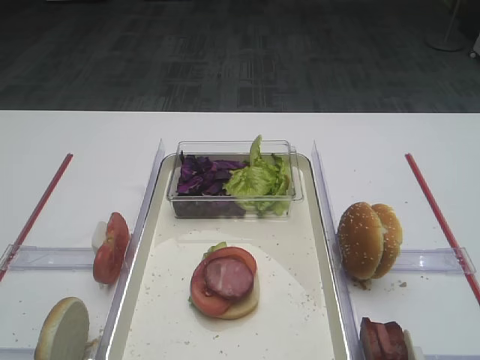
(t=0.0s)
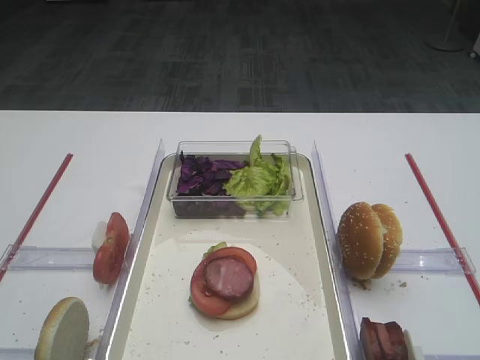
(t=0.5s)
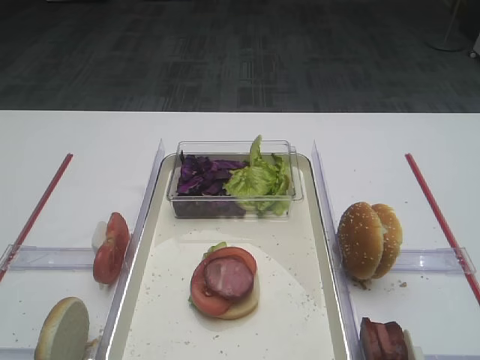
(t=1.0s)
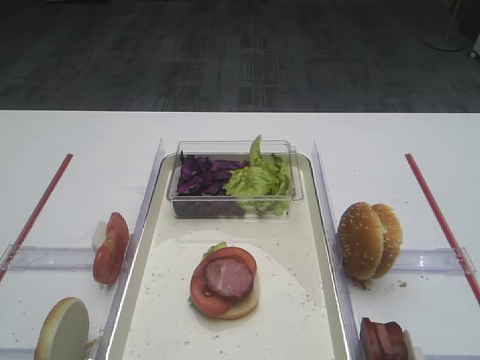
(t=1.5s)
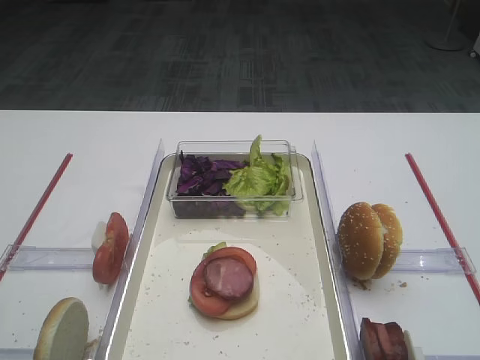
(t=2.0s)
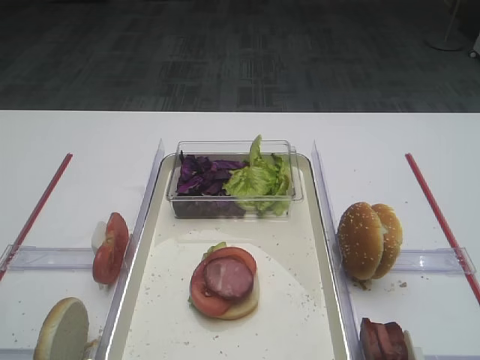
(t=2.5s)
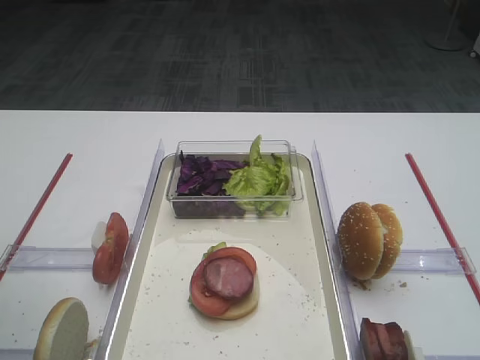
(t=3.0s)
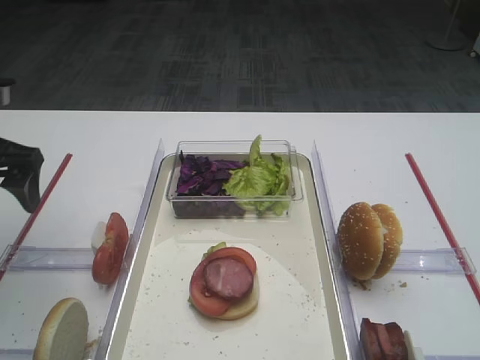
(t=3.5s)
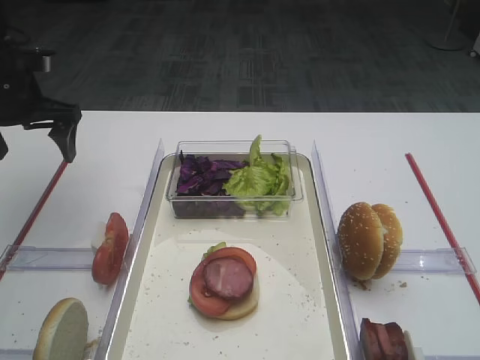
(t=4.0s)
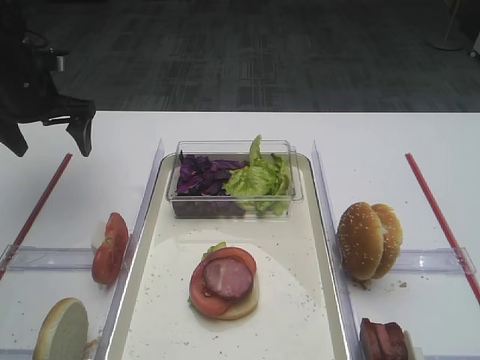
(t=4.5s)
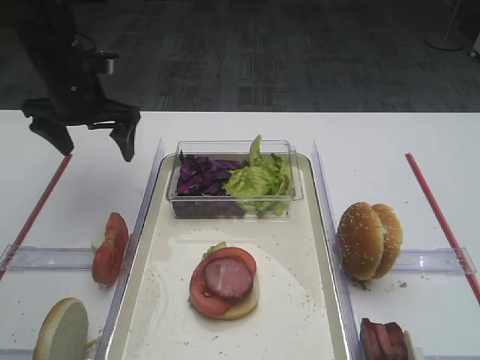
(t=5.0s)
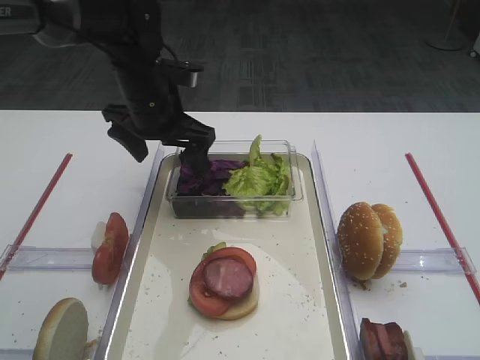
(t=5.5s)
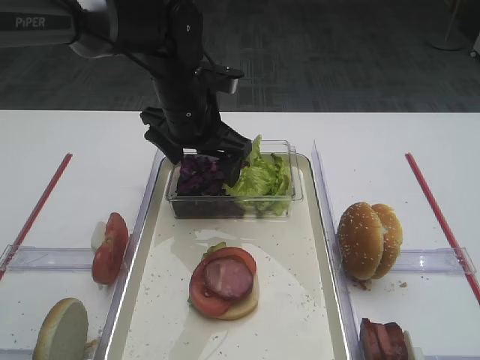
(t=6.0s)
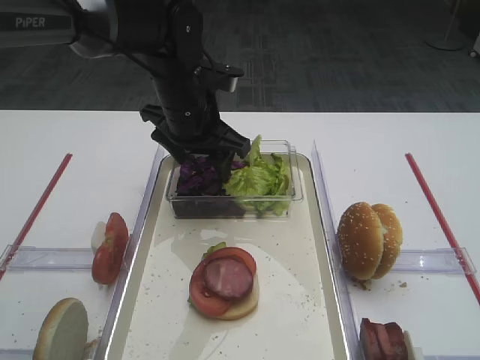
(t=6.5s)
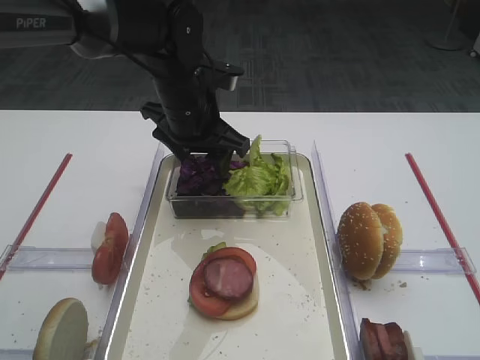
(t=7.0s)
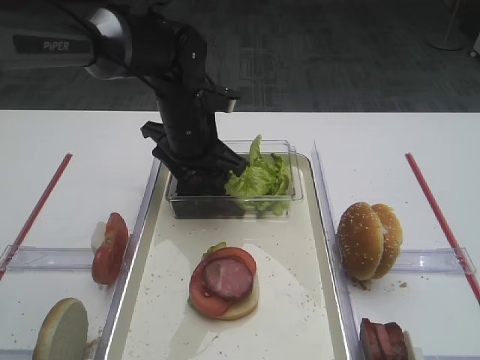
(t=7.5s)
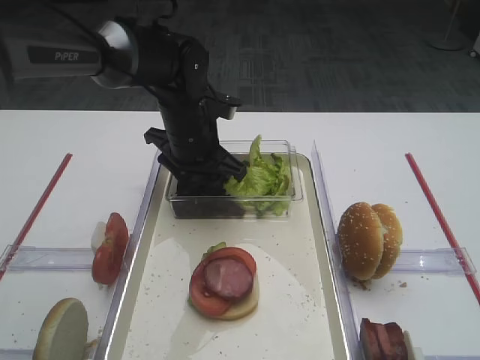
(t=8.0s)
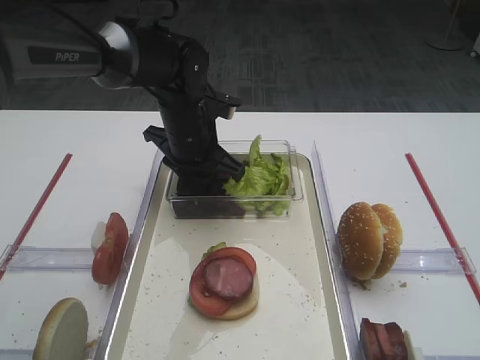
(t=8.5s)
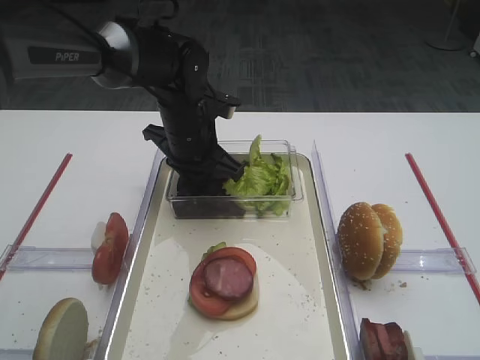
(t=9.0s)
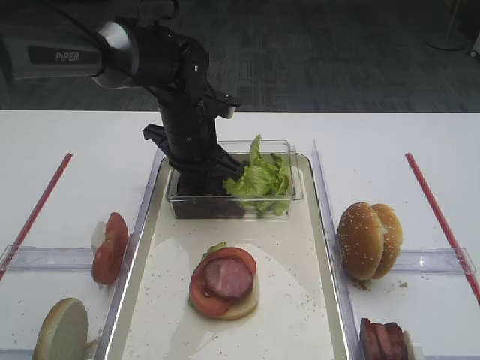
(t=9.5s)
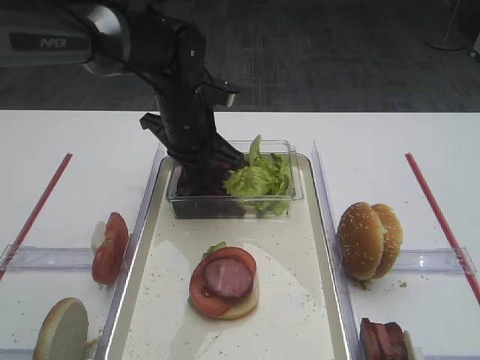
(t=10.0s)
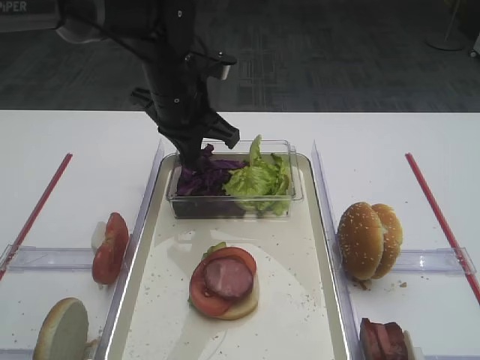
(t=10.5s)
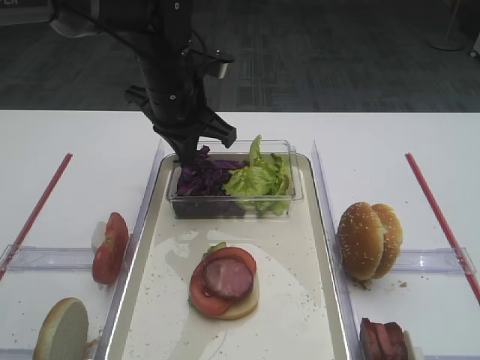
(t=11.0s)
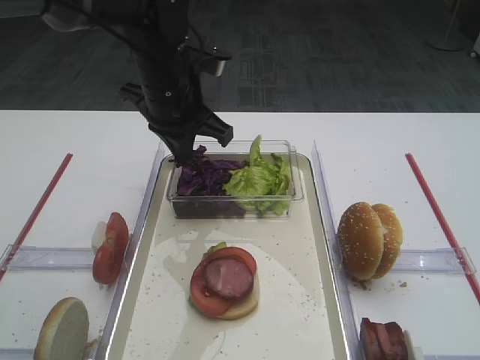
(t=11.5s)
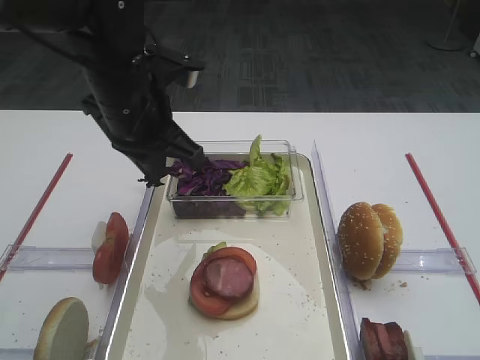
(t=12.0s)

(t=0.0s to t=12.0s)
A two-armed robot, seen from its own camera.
Step, t=0.0s - t=10.5s: Pick up the purple cabbage with the left gripper.
t=2.0s - t=4.0s: The left gripper moves forward, roughly 30 cm.
t=4.0s - t=6.0s: The left gripper heads to the right, covering some 20 cm.
t=6.0s - t=8.0s: The left gripper closes up.
t=8.0s - t=10.0s: The left gripper closes its fingers.
t=10.0s - t=12.0s: The left gripper goes some 10 cm backward and upward.

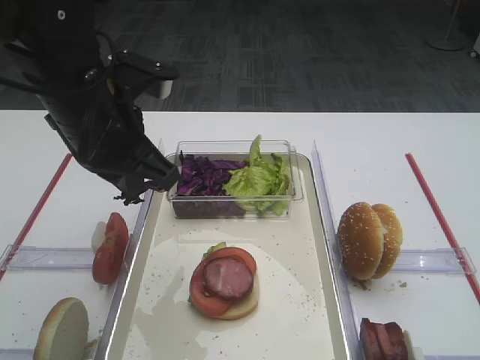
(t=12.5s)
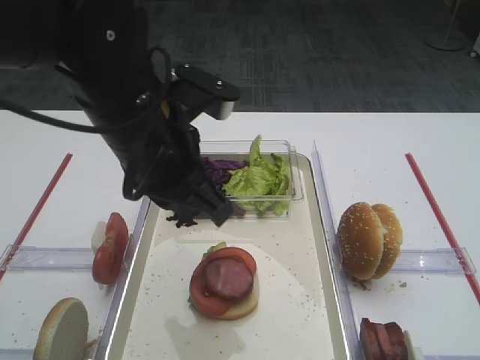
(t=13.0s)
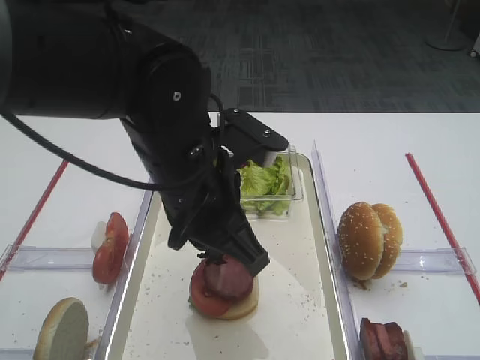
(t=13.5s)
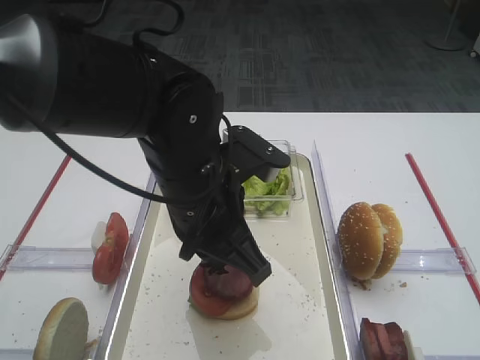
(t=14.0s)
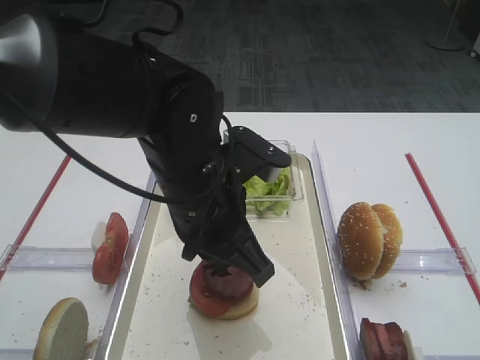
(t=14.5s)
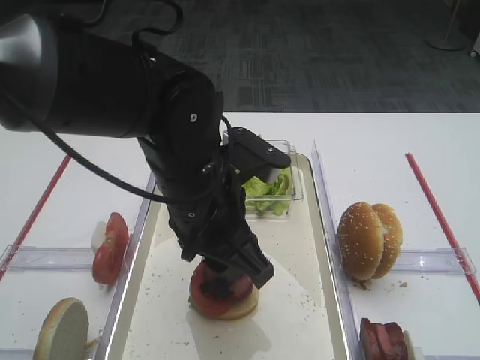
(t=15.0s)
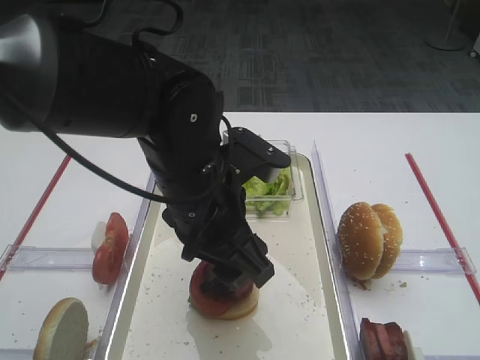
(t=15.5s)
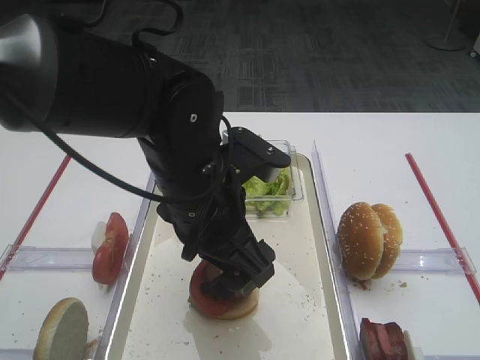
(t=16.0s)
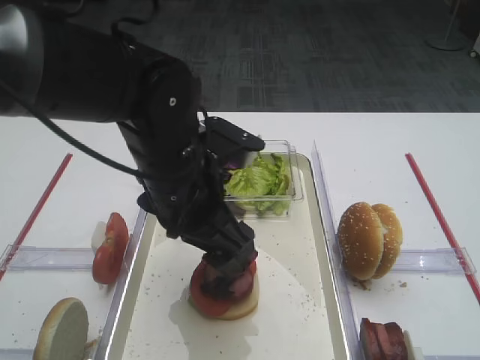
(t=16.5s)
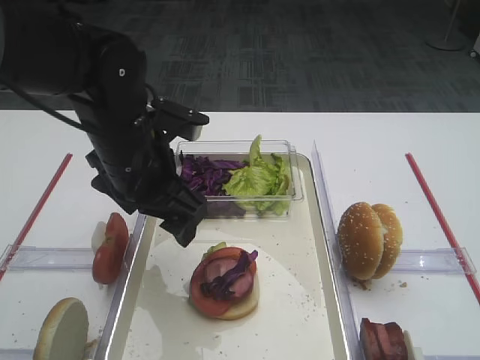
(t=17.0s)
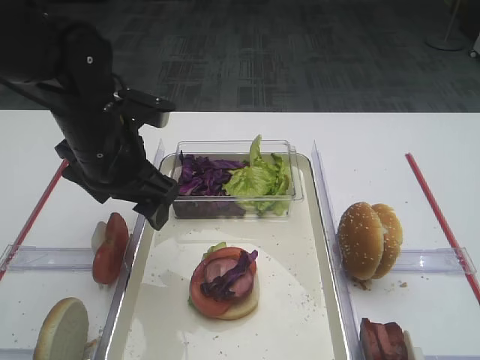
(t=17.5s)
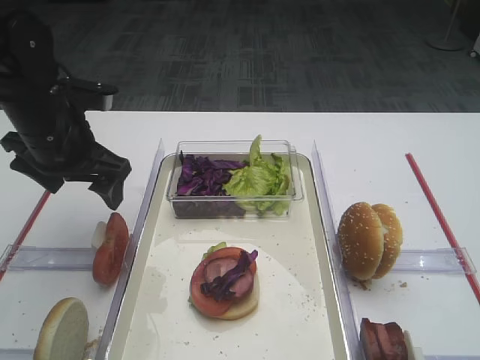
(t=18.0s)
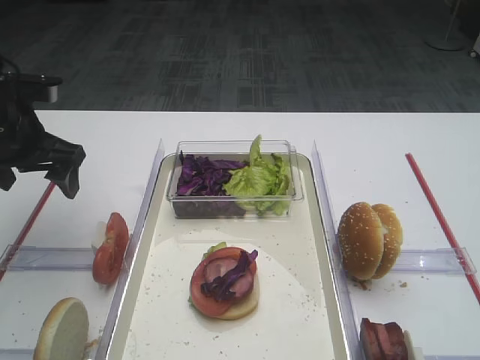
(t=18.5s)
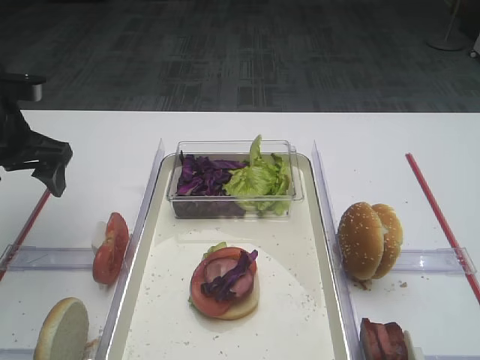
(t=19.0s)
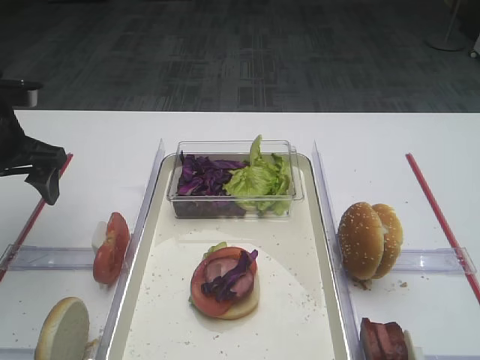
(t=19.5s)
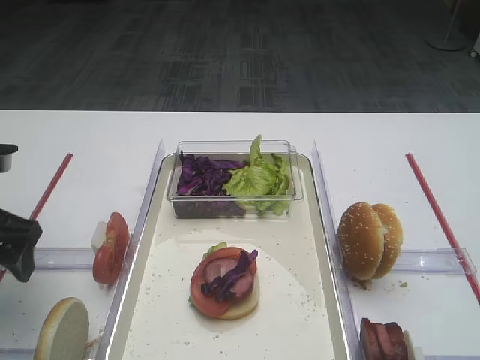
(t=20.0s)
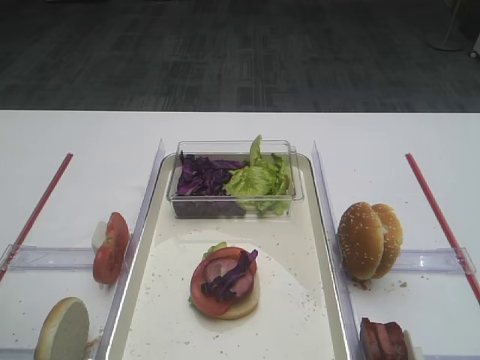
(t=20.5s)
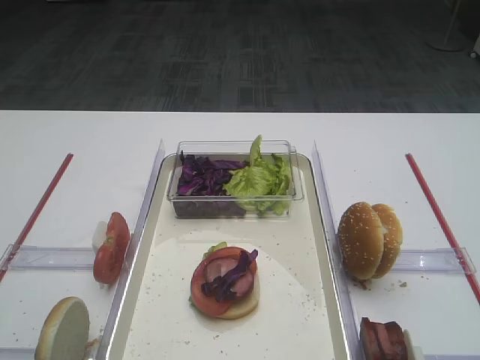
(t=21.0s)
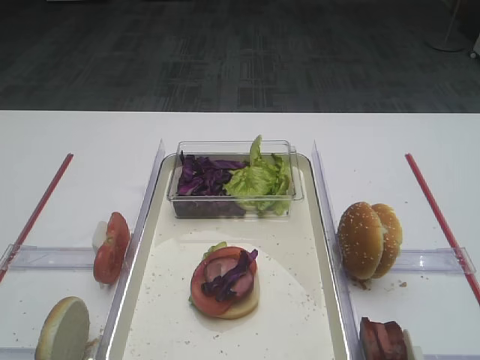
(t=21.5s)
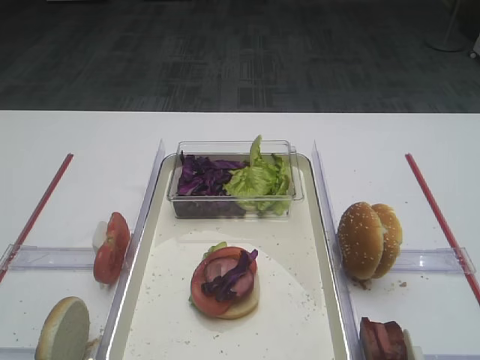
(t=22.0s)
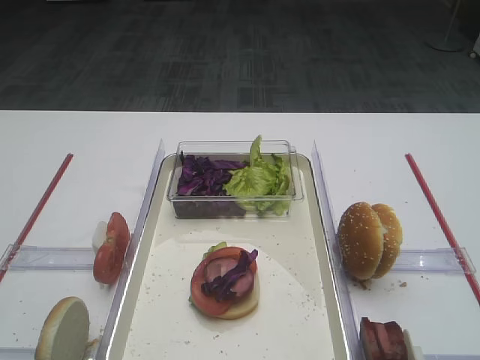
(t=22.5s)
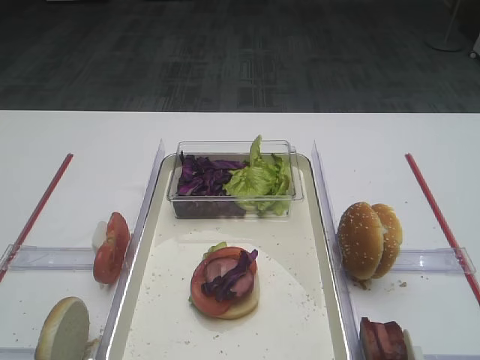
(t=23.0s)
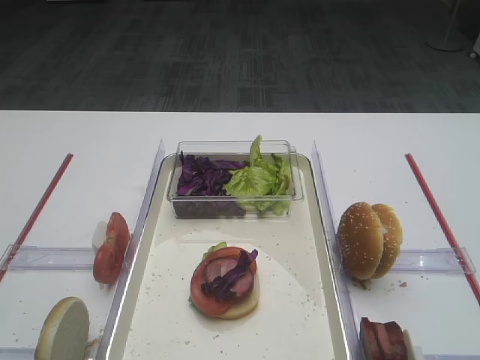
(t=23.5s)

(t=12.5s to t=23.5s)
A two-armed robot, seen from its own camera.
Step, t=12.5s - t=15.0s: Place the purple cabbage on the cutlet with the left gripper.
t=12.5s - t=14.5s: The left gripper moves to the right, some 10 cm.
t=14.5s - t=16.0s: The left gripper opens its fingers.
t=16.0s - t=18.0s: The left gripper travels to the left and forward by about 20 cm.
t=18.0s - t=20.0s: The left gripper shifts approximately 10 cm to the left and backward.
t=20.0s - t=21.5s: The left gripper shifts about 25 cm backward.

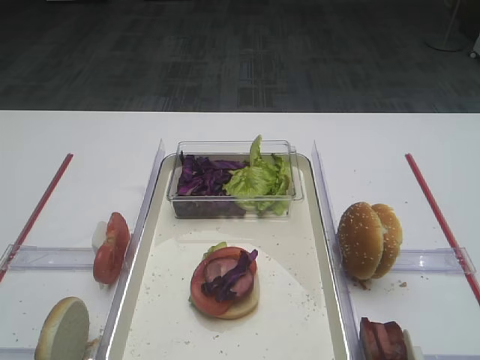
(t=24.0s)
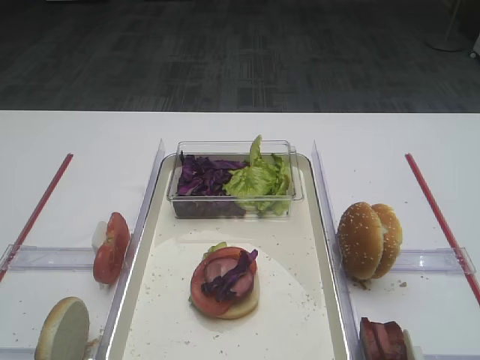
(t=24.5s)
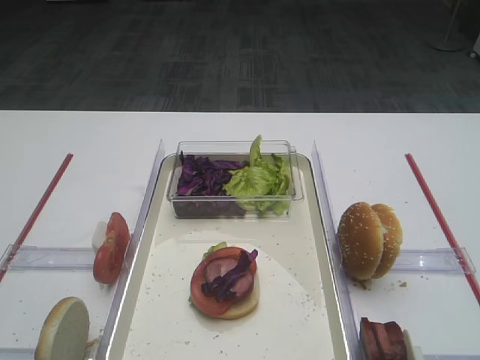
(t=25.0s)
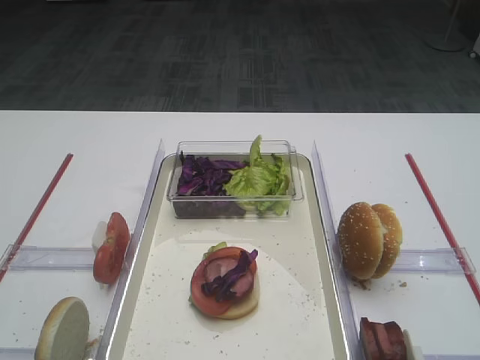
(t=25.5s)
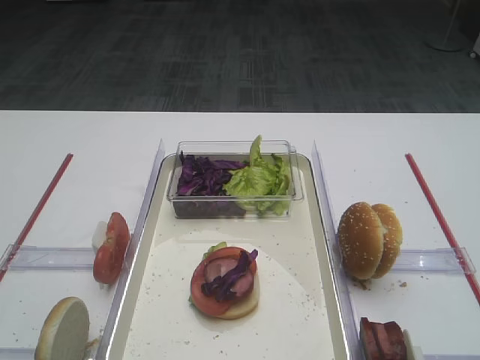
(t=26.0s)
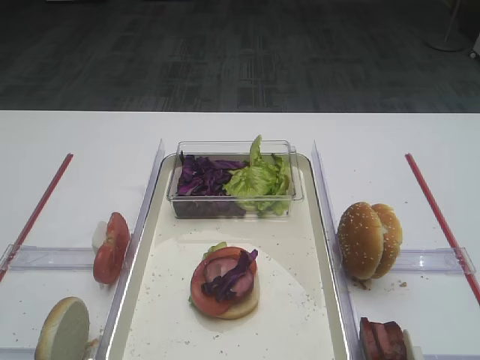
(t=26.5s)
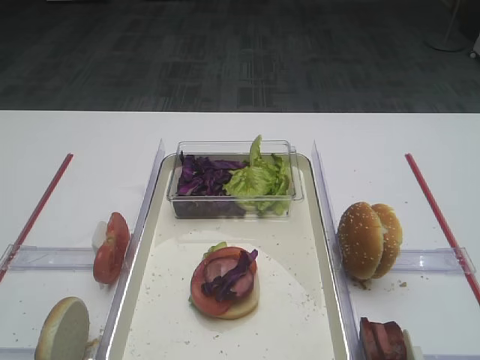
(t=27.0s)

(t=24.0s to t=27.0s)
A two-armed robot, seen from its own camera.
t=24.0s - t=27.0s: The two grippers keep their place.
